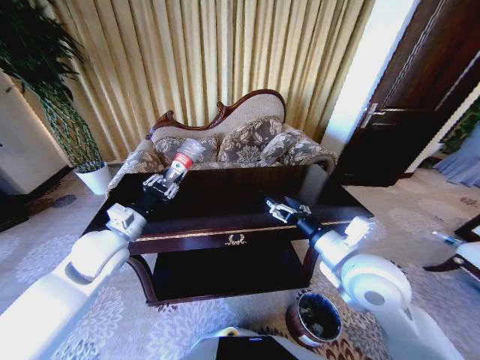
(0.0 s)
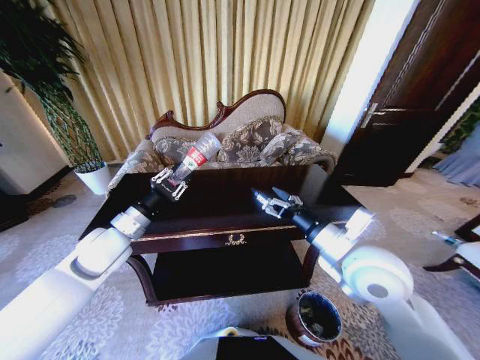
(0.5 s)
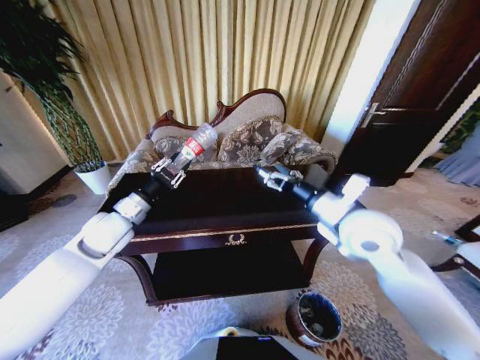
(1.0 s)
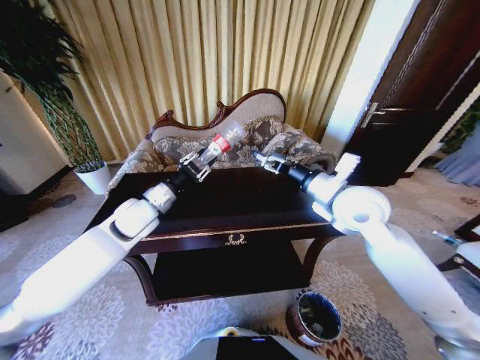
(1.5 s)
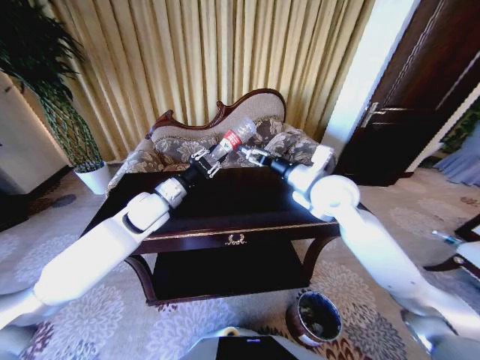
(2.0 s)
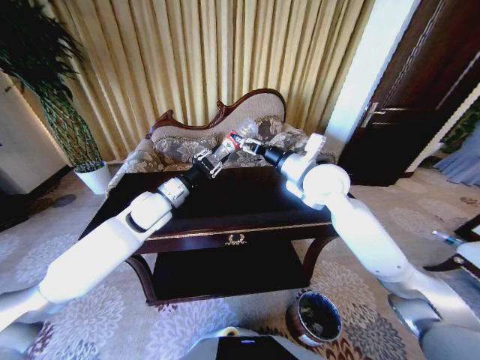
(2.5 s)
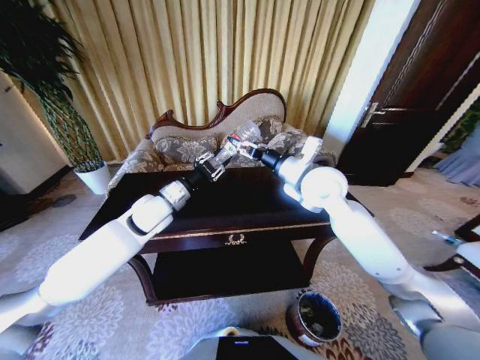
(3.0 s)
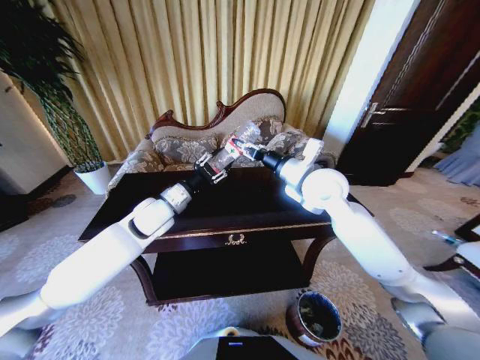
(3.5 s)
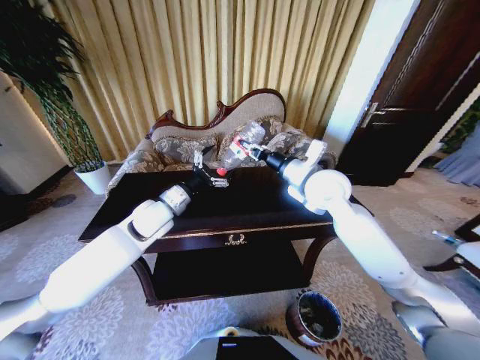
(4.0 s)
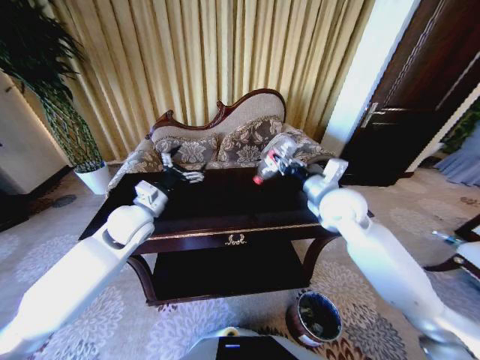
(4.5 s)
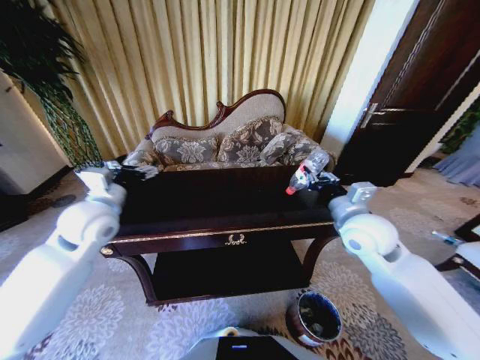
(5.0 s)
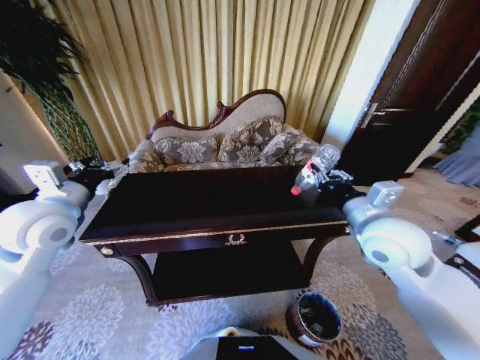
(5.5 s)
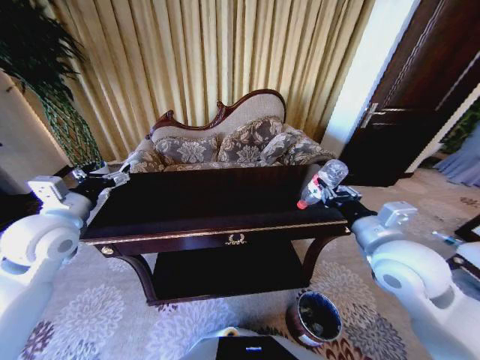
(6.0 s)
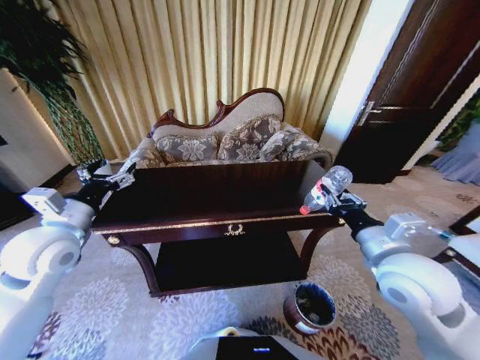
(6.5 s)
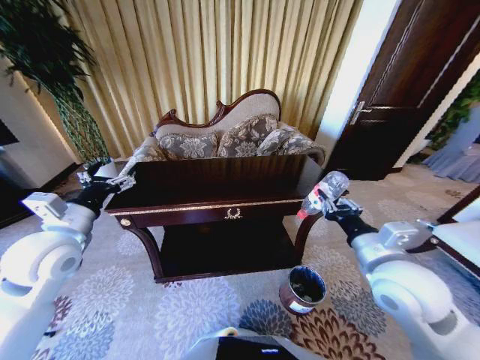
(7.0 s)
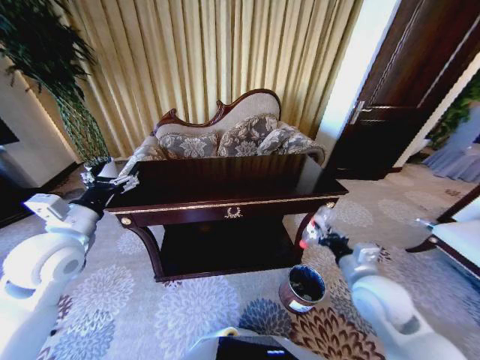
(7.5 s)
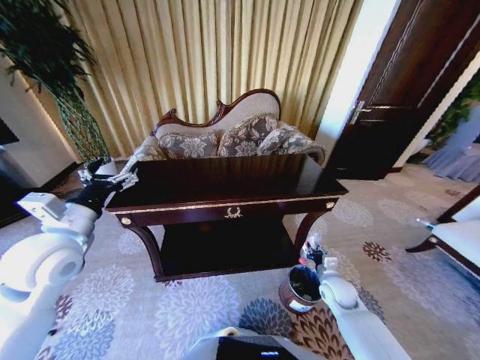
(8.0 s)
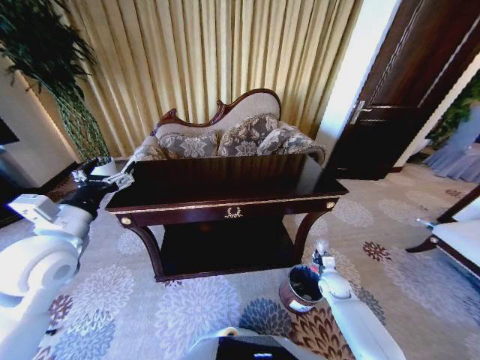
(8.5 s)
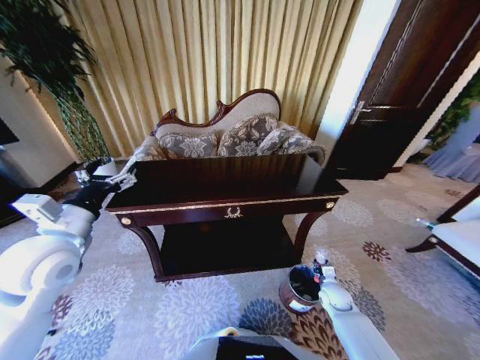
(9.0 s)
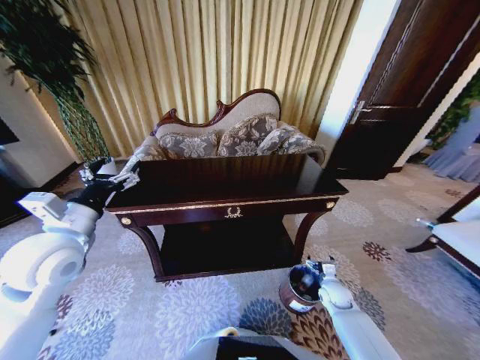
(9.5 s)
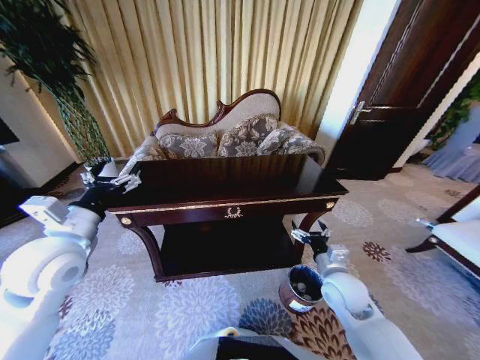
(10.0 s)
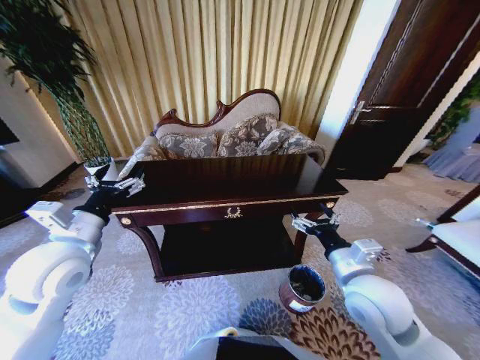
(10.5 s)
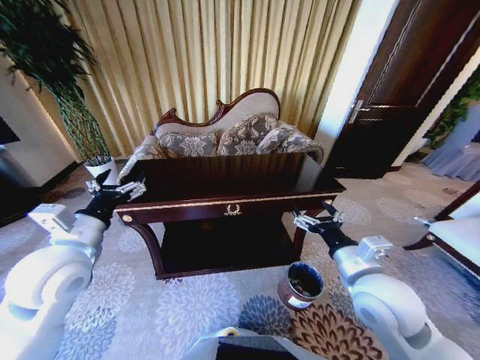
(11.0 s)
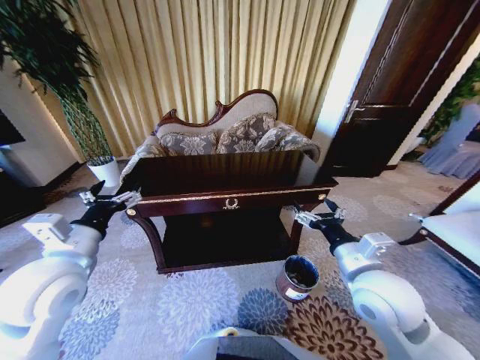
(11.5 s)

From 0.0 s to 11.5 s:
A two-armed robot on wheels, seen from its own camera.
Task of the whole recording: Move to the front of the table and place the trash on the table into the trash bin.
From 0.0 s to 2.0 s: The left gripper goes about 15 cm forward and to the right. The right gripper moves forward, about 15 cm.
From 2.0 s to 4.0 s: The right gripper closes its fingers, while the left gripper opens.
From 4.0 s to 6.0 s: The right gripper heads backward and to the right, covering roughly 20 cm; the left gripper shifts some 20 cm to the left and backward.
From 6.0 s to 7.5 s: The right gripper heads downward, covering approximately 10 cm.
From 7.5 s to 9.5 s: The right gripper moves downward, about 25 cm, and opens up.
From 9.5 s to 11.5 s: The right gripper is displaced upward by roughly 30 cm. Meanwhile the left gripper changes place by some 5 cm.
